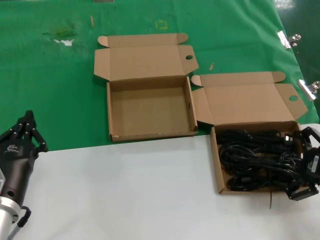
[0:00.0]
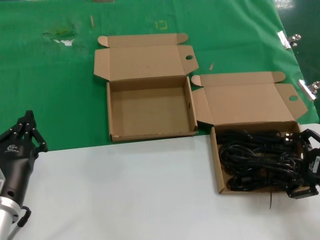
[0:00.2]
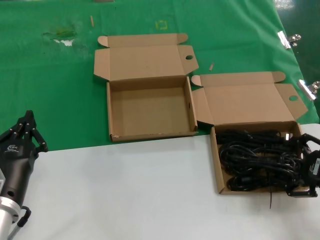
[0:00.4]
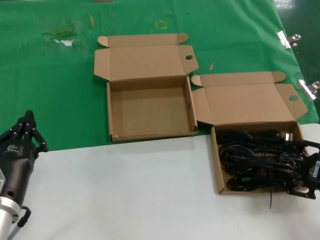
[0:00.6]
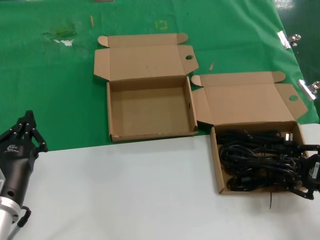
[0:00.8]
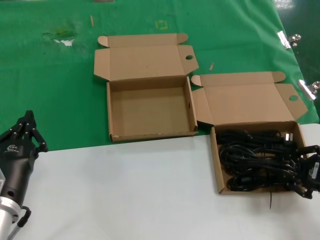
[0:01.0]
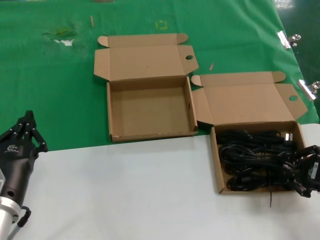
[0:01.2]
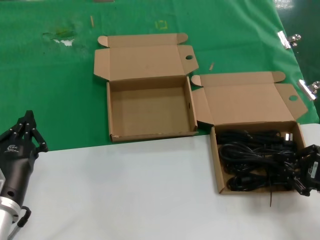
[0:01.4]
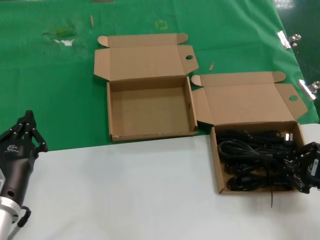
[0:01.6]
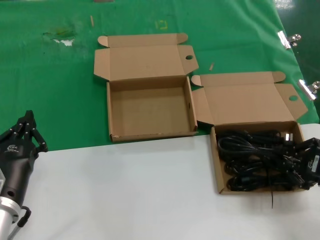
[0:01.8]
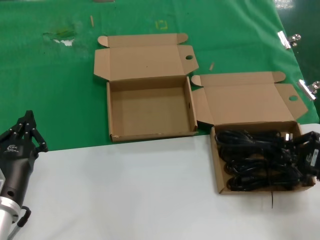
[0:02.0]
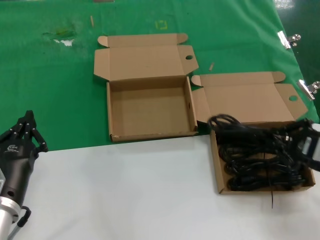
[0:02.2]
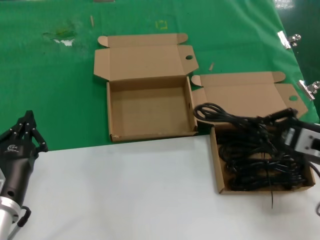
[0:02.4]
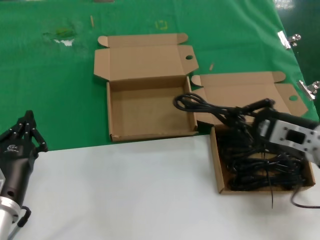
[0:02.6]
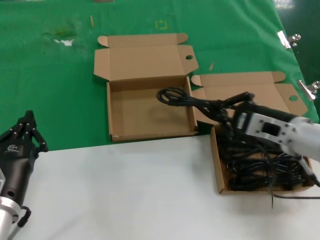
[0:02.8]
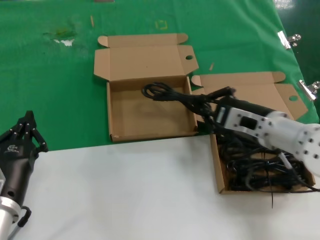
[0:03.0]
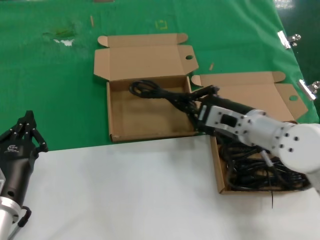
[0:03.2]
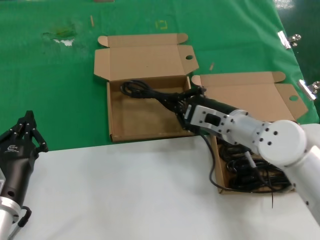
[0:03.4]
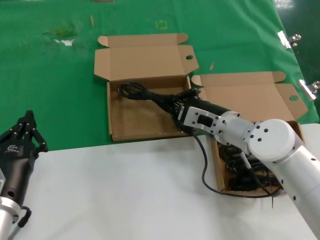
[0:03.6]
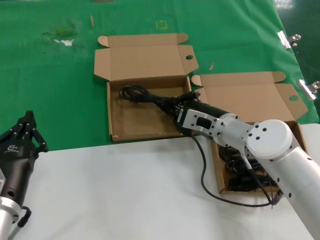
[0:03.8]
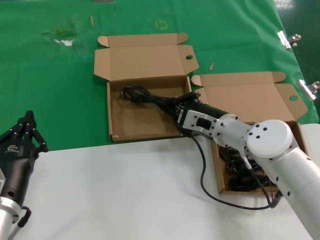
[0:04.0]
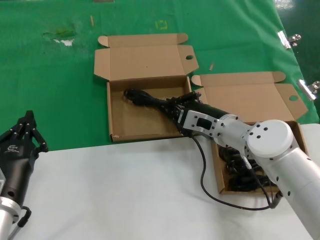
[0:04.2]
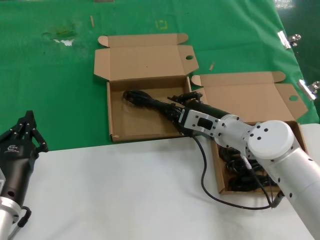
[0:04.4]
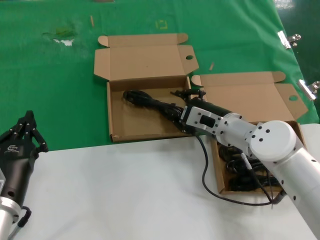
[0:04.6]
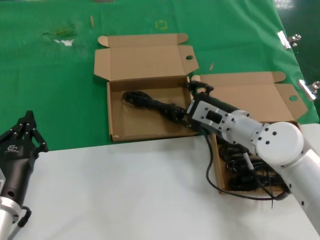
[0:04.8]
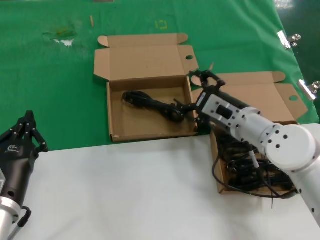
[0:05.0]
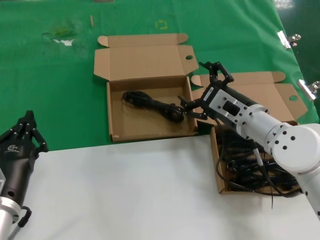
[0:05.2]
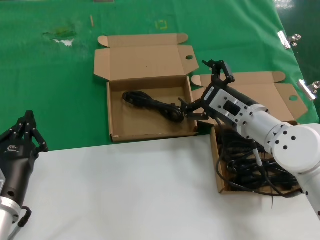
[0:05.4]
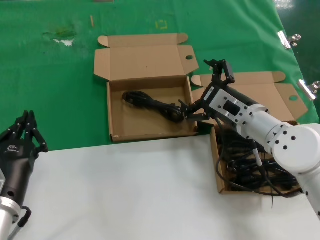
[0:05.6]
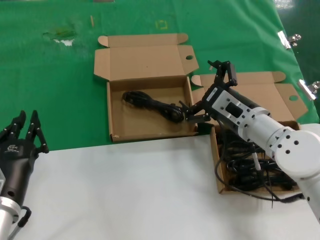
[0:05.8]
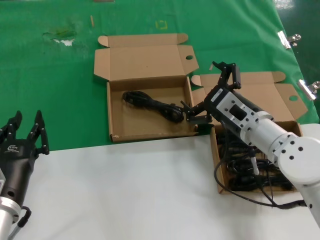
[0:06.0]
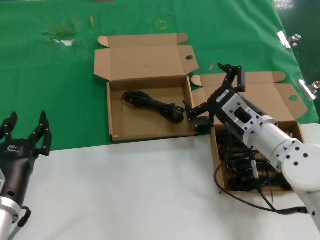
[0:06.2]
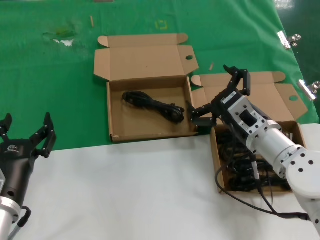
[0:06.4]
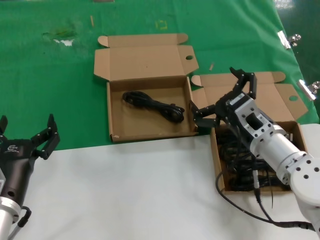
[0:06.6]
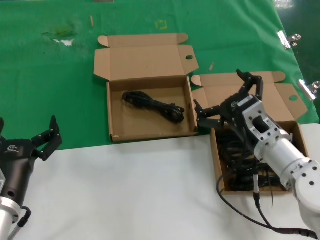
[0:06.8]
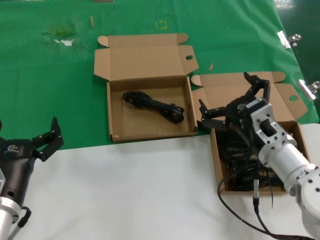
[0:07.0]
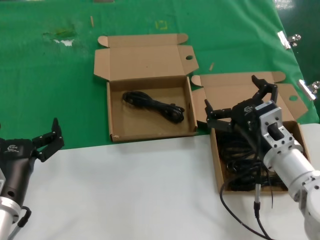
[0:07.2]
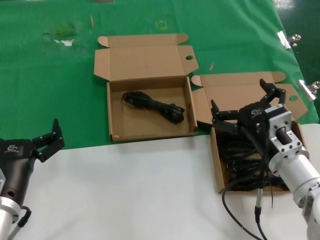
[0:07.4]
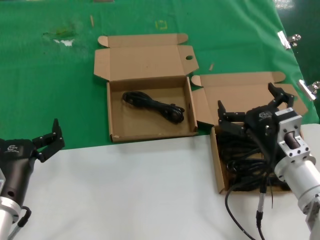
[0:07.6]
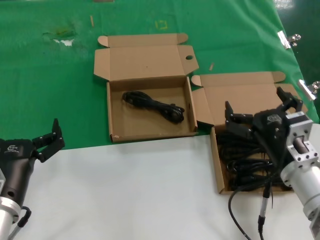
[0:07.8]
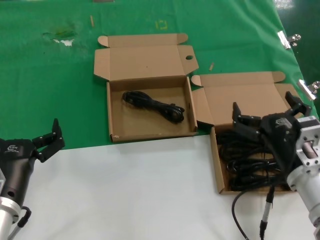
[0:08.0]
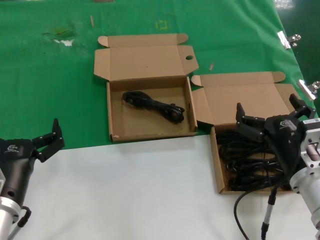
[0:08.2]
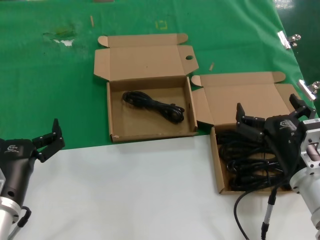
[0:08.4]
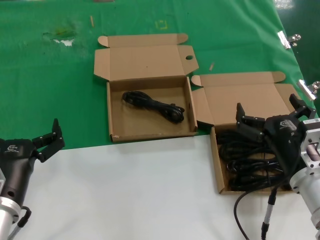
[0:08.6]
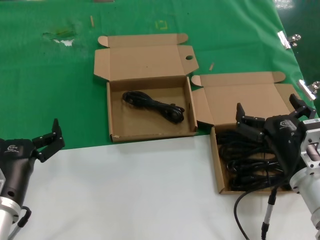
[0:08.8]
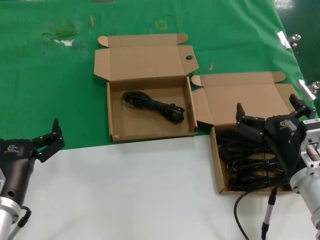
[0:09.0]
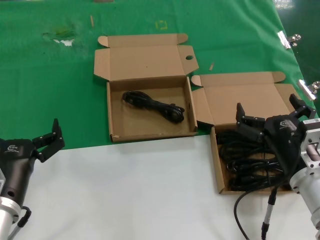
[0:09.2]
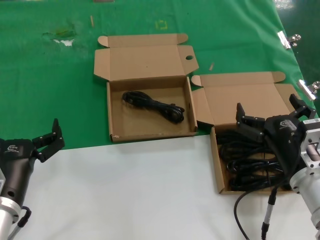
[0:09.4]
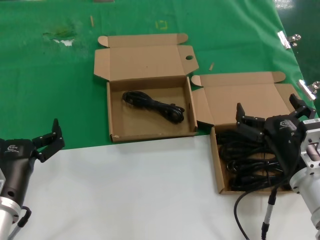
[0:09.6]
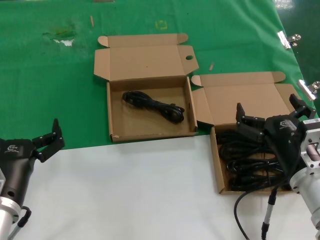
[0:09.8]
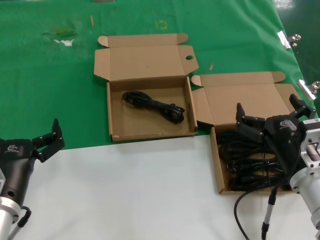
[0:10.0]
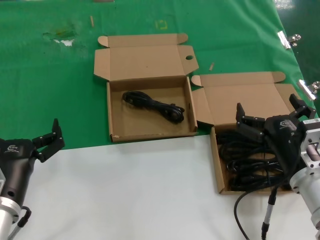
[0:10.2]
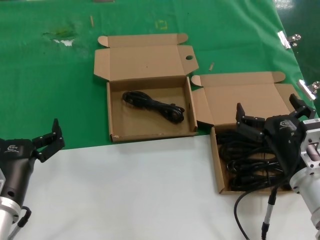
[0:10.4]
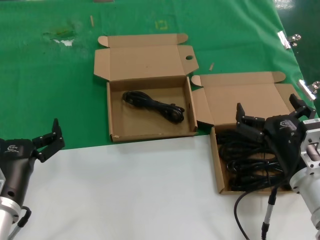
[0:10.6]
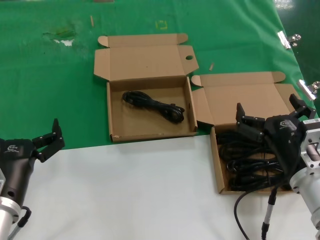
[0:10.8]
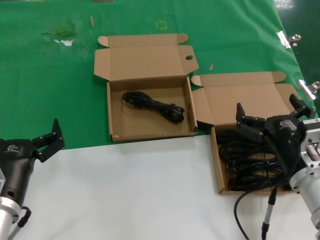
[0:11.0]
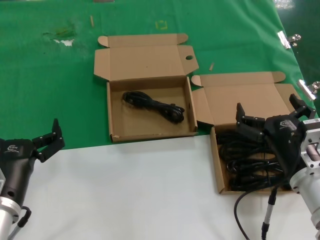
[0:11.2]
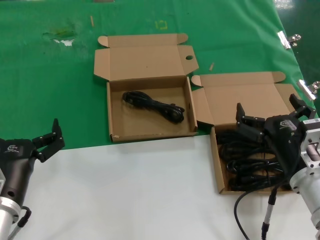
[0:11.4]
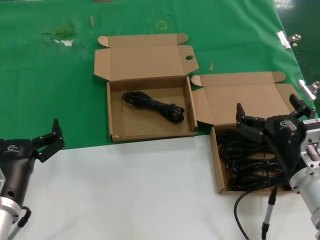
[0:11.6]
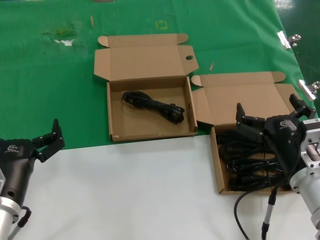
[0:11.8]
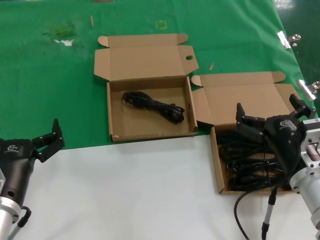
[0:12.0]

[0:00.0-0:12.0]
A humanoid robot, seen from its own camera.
Task of the whole recording: take the parts from the box containing them and put them into an empty box.
Step, 0:01.2 to 0:04.6: Place the data cable in the another box.
0:00.0 to 0:01.6: Neither hand changes place.
0:01.6 to 0:03.0: The right hand shifts roughly 20 cm to the left and forward.
0:03.0 to 0:04.4: The right hand shifts some 10 cm forward, to the left and downward.
0:04.4 to 0:06.0: The right hand moves some 5 cm.
0:06.0 to 0:07.6: The right hand moves backward, some 10 cm.
0:07.6 to 0:09.0: The hands make only small movements.
0:09.0 to 0:12.0: Both hands stay put.

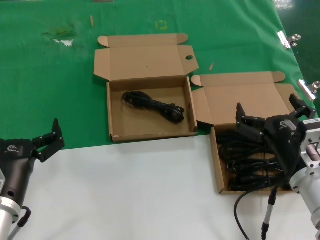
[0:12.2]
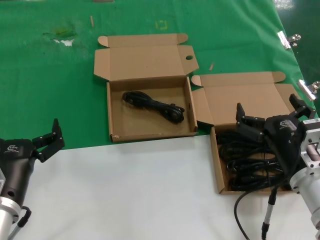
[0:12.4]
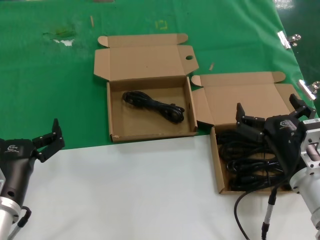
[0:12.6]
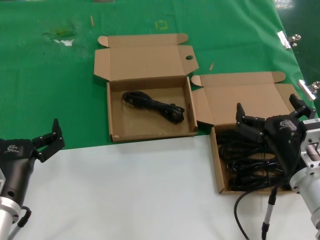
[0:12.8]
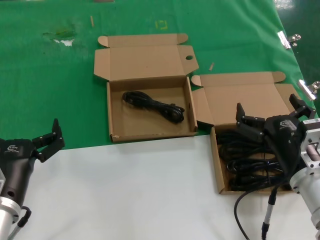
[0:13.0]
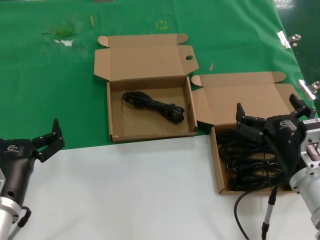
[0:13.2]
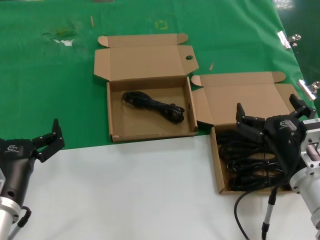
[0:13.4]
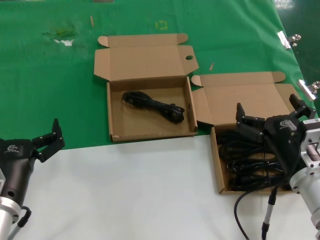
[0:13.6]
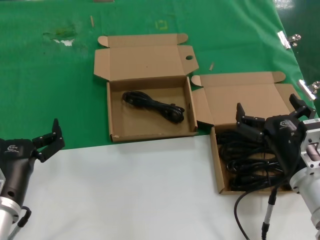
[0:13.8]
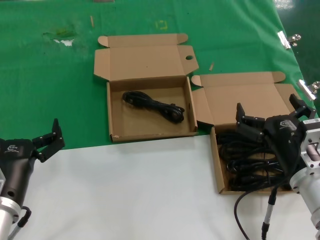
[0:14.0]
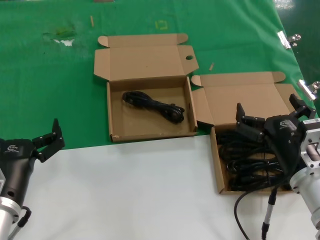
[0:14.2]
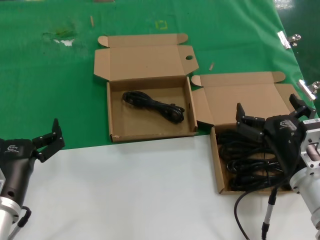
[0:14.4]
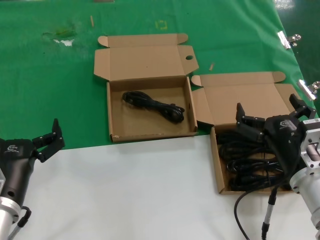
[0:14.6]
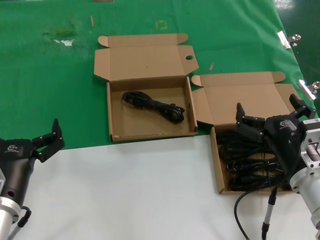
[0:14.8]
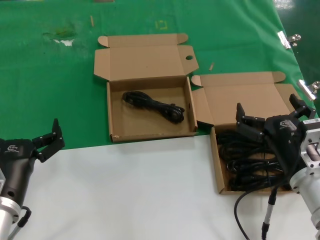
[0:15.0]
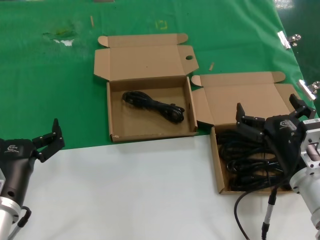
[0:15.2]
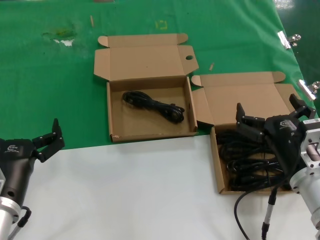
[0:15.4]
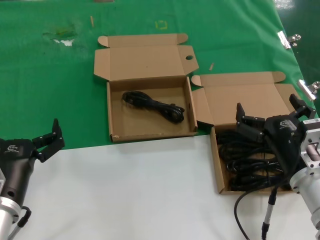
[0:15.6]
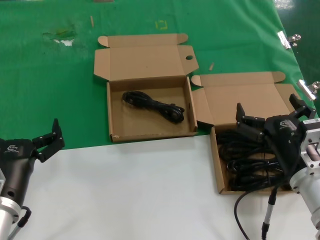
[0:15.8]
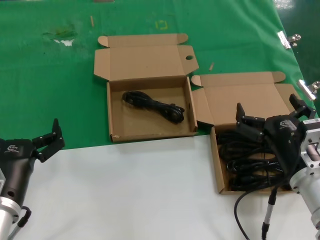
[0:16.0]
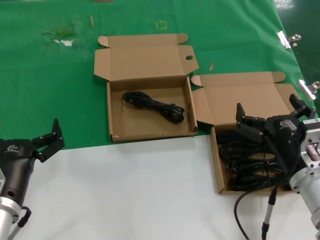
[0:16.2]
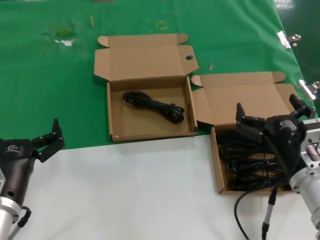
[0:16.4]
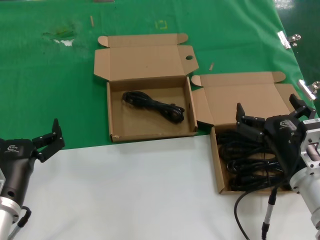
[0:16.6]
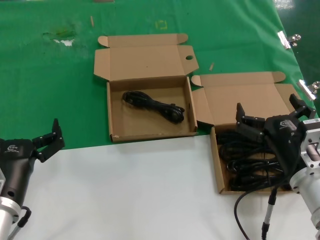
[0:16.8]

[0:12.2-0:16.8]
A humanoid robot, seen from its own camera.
Task of the whole recording: take the parts from the box containing them and put them into an empty box.
0:12.2 to 0:16.8: The two hands keep their place.
